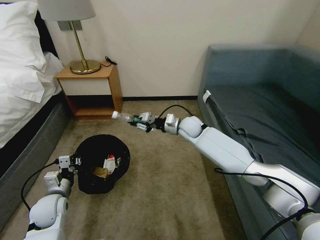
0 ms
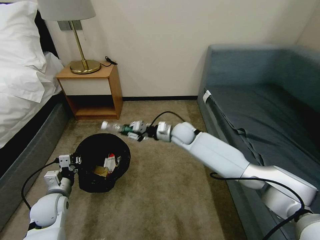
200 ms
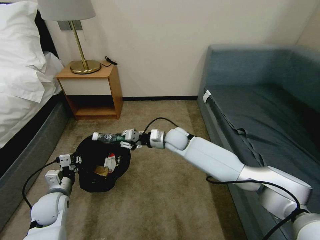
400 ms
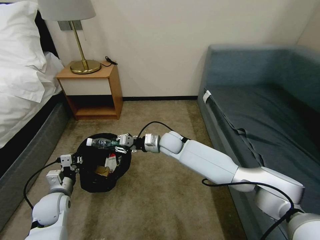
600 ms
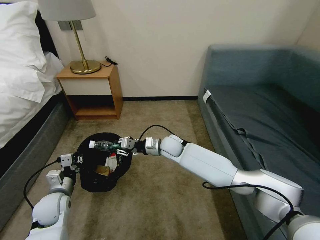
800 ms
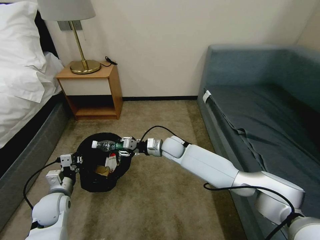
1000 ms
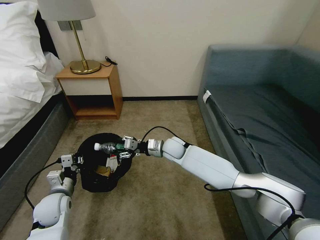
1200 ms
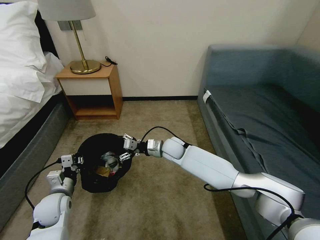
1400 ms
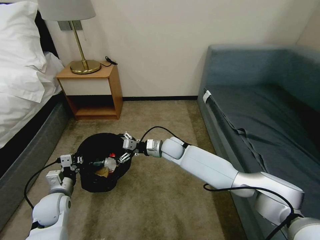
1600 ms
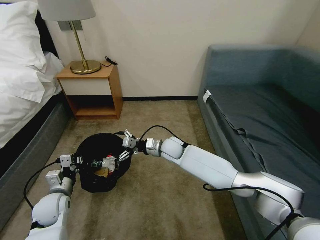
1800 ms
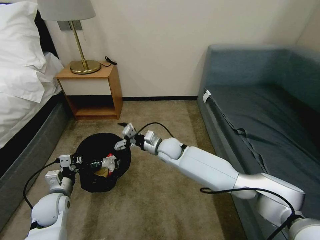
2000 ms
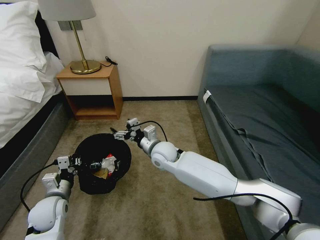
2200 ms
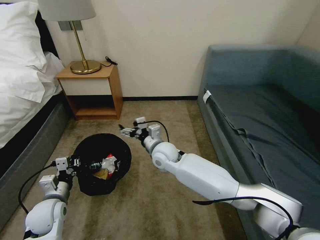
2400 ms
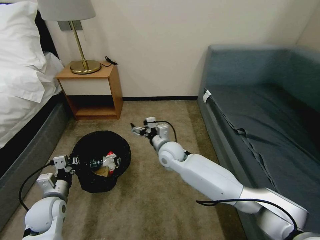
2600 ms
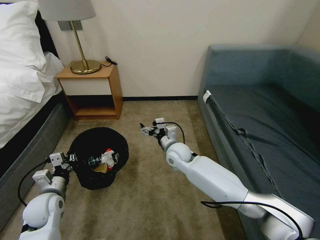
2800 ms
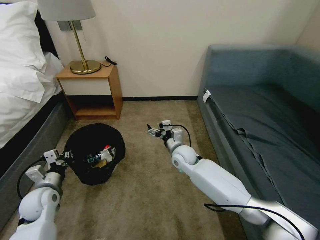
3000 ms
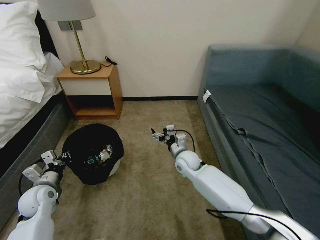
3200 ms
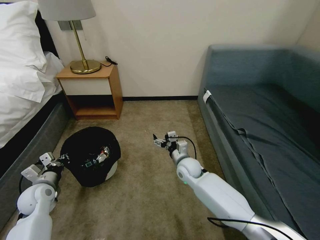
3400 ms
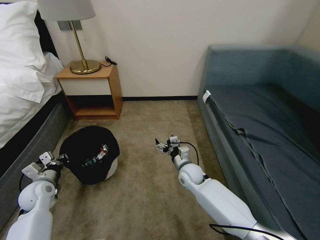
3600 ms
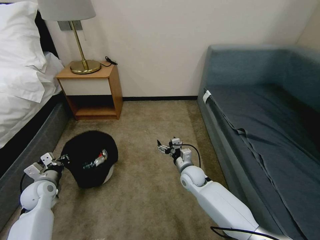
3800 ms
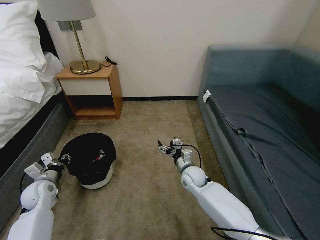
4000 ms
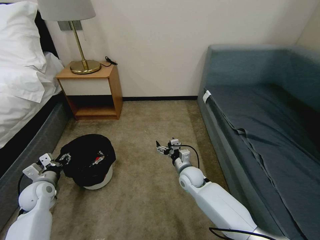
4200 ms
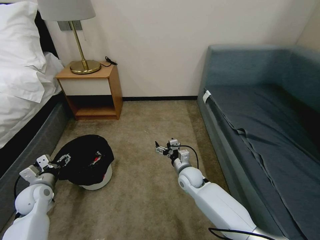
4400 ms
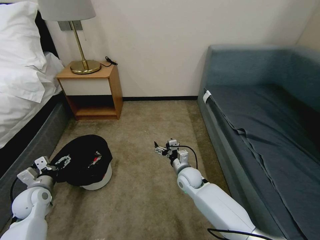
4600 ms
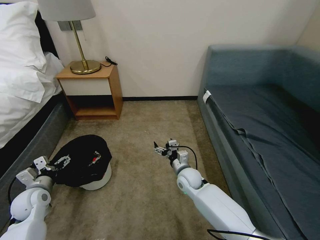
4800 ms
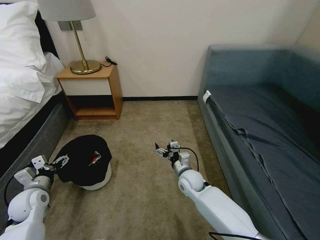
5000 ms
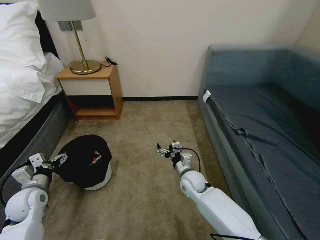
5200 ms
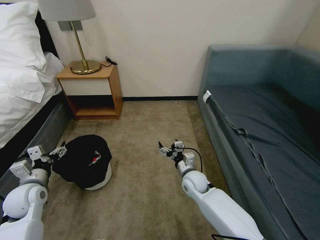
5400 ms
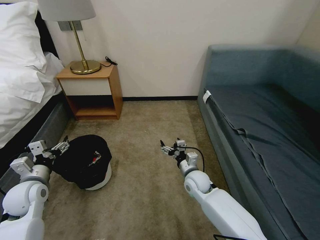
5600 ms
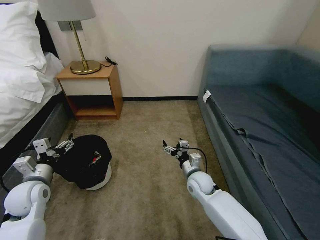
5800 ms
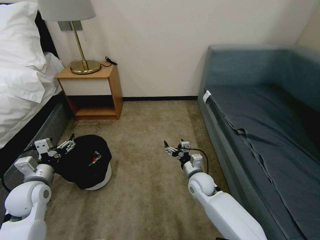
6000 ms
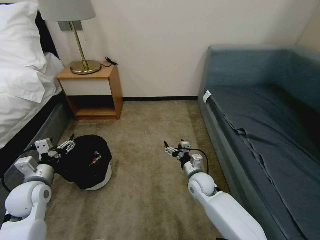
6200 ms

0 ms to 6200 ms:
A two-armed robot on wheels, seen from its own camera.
Task of the whole recording: Pick up the trash bin, then pick up the garbage on the floor and place it into the trash bin.
0 ms to 1600 ms: The right gripper shifts approximately 10 cm to the left, downward and backward, and opens its fingers.
1600 ms to 3200 ms: The right gripper goes about 5 cm to the right. Meanwhile the left gripper heads to the left, covering approximately 5 cm.
3200 ms to 4600 ms: The left gripper opens its fingers. The right gripper ends up roughly 5 cm from where it was.
4600 ms to 6200 ms: The left gripper shifts approximately 5 cm upward.

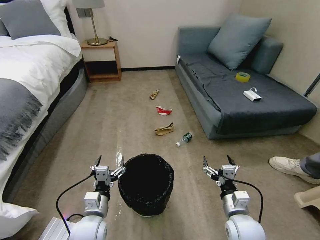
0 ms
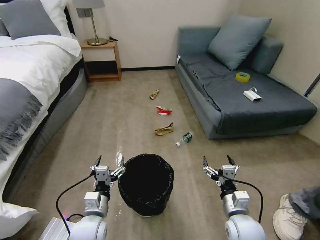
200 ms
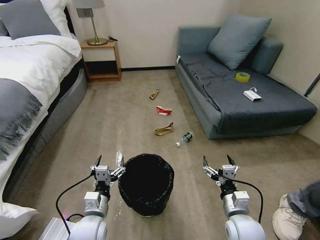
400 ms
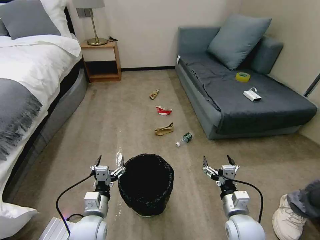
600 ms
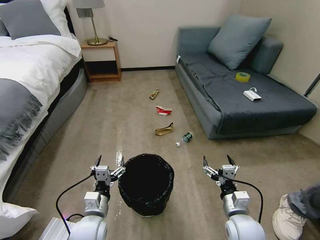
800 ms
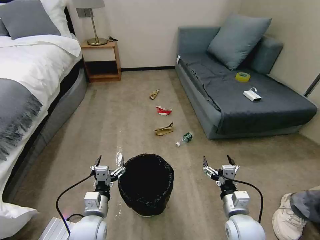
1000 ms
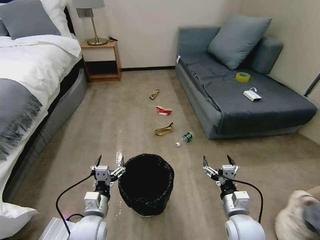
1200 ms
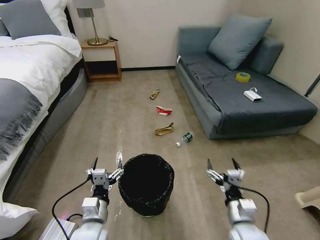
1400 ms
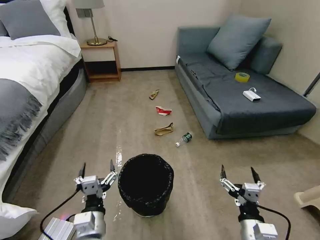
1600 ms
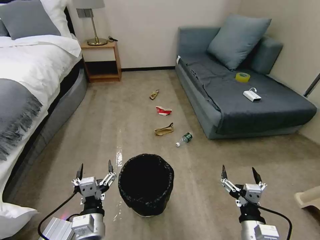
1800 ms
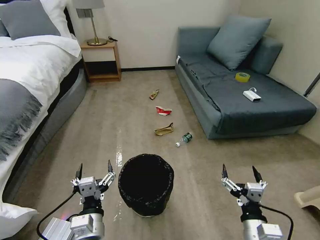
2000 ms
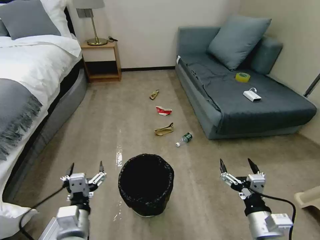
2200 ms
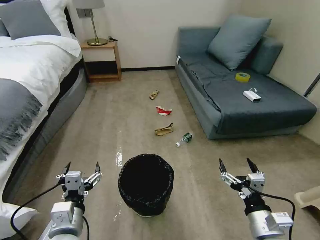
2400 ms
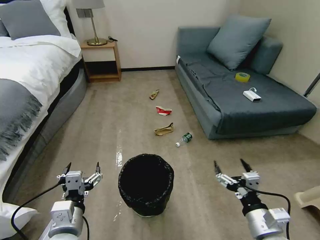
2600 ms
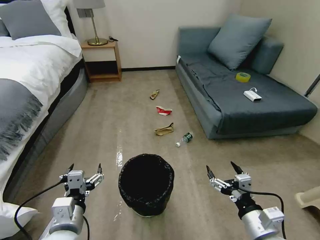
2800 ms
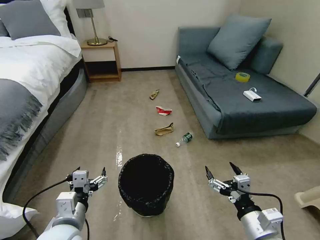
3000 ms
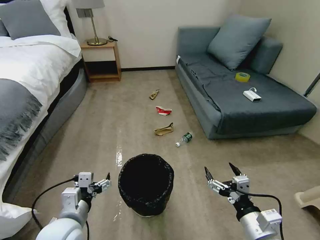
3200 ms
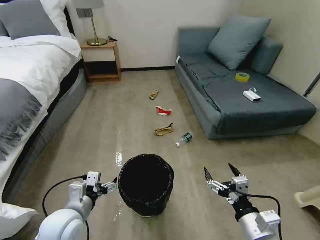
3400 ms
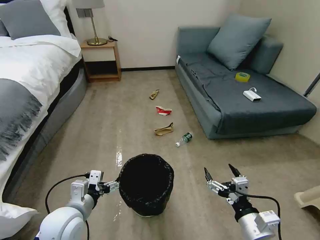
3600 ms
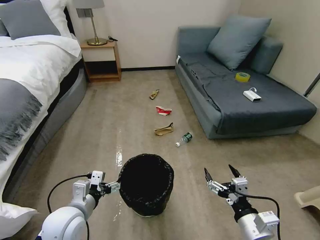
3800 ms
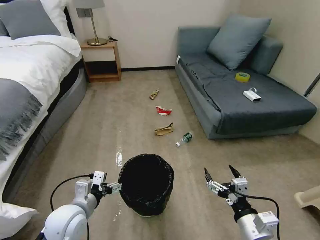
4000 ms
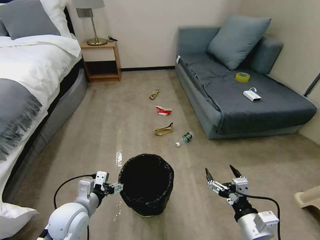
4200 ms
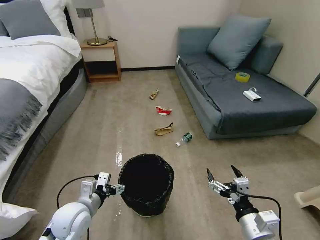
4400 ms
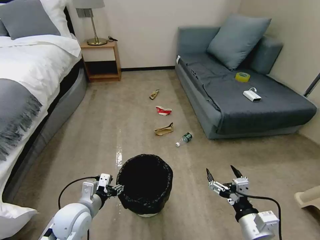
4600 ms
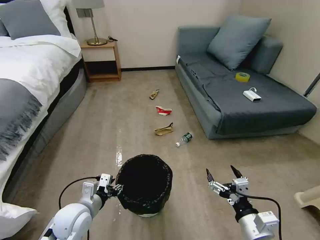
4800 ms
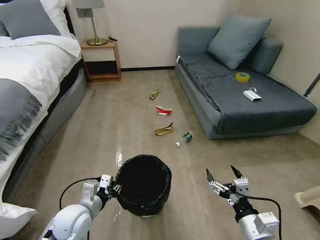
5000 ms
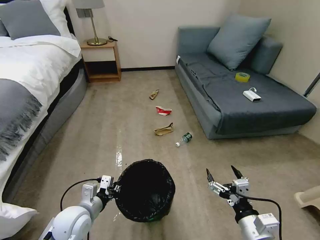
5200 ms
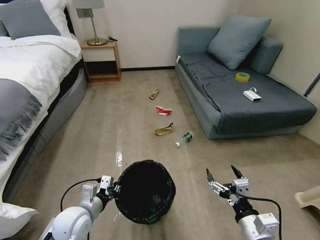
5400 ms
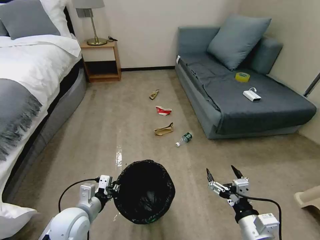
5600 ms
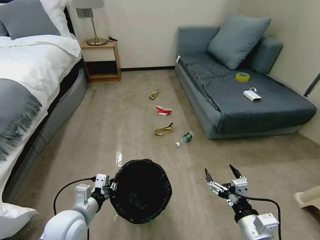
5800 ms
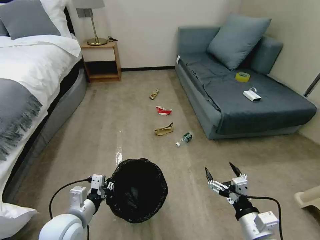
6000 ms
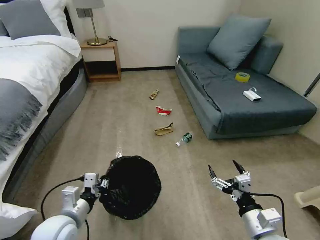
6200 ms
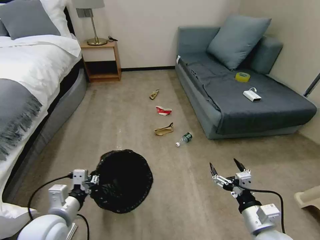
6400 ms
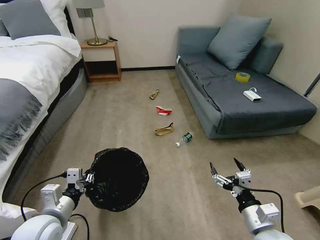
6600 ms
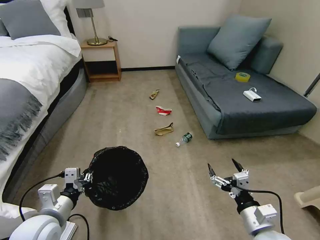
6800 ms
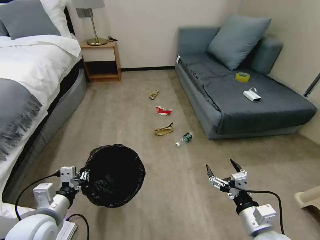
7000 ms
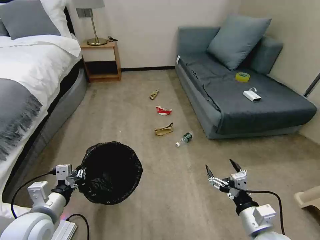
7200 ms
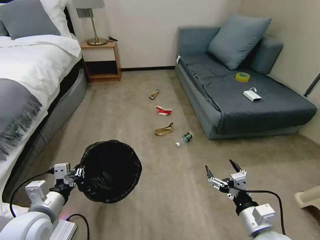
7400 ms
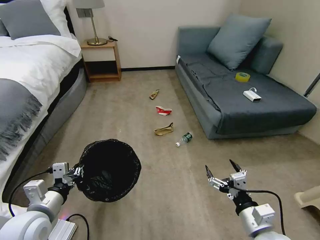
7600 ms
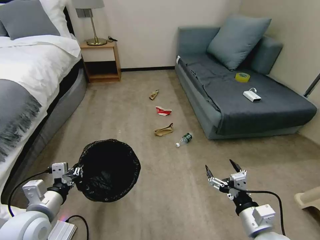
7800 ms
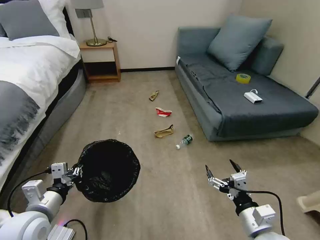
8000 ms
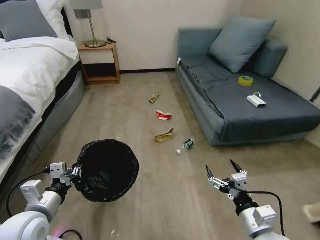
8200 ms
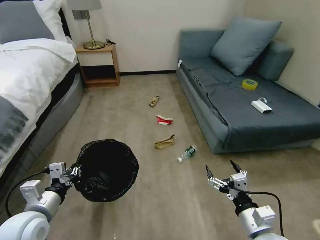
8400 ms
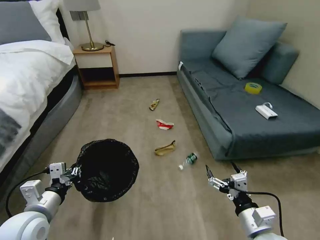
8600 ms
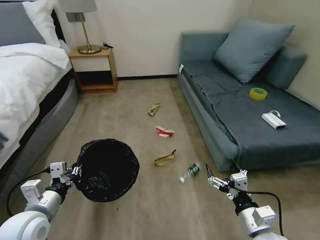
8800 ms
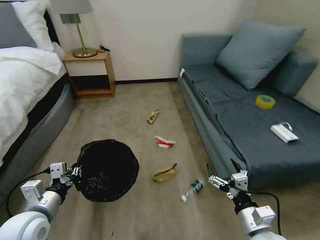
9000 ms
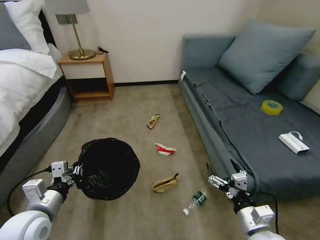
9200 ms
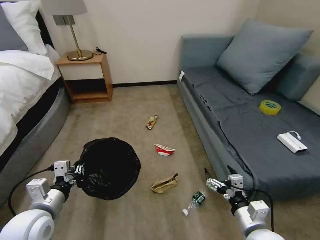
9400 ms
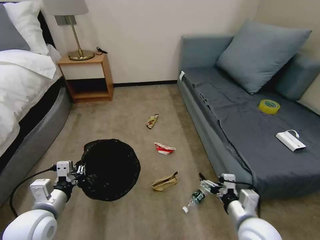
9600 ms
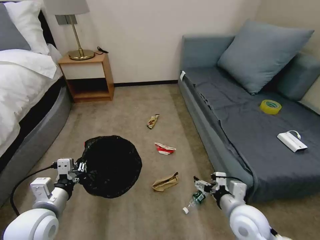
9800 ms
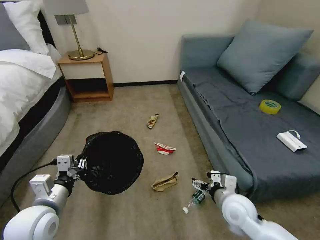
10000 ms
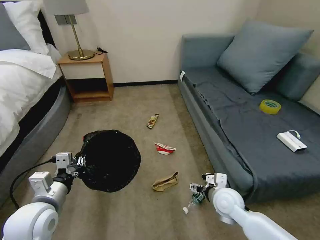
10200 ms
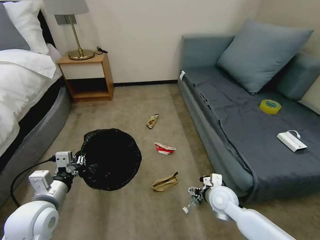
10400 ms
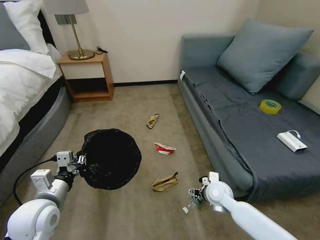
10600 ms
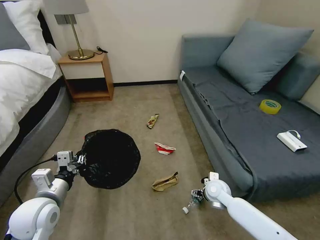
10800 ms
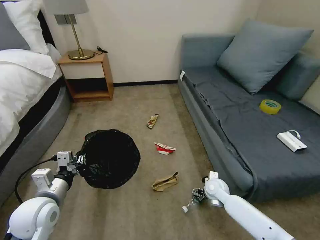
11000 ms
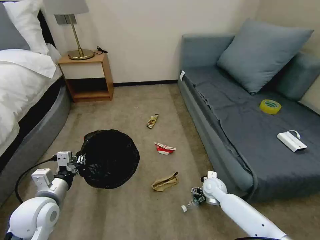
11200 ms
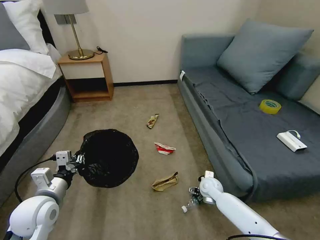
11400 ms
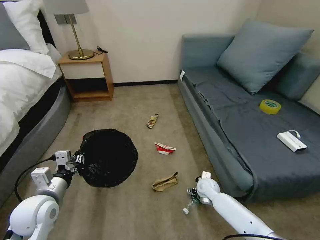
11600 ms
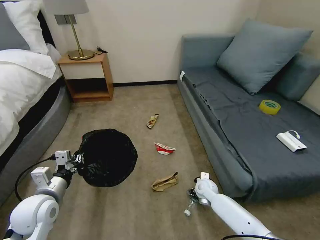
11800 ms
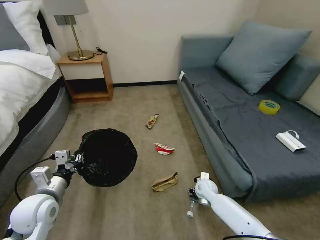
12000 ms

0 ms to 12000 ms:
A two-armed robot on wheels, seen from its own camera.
Task of the whole recording: Pick up the trash bin, then pick up the garbage on the floor and place it into the trash bin.
1600 ms to 3000 ms: The left gripper travels to the left by about 5 cm. The right gripper heads upward, covering approximately 5 cm.
3000 ms to 4400 ms: The left gripper heads forward and downward, covering some 10 cm.
4400 ms to 6000 ms: The left gripper closes.
6000 ms to 7600 ms: The left gripper is displaced to the left by some 5 cm.
9000 ms to 10400 ms: The right gripper moves forward, roughly 15 cm.
10400 ms to 12000 ms: The right gripper is displaced downward and forward by some 15 cm, and closes.

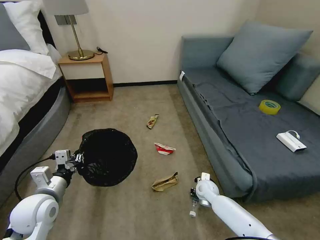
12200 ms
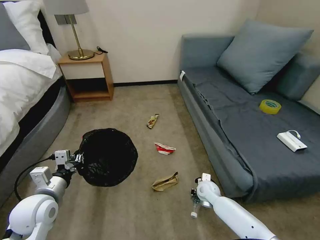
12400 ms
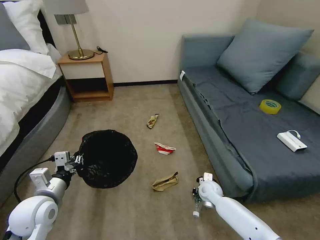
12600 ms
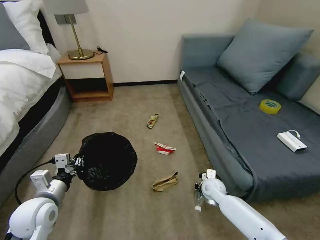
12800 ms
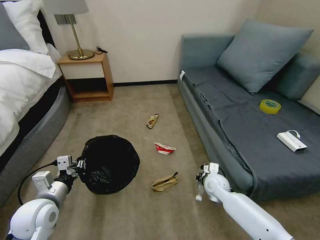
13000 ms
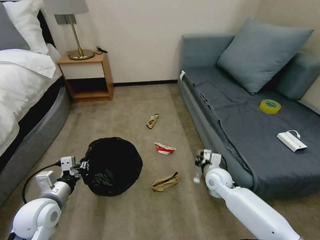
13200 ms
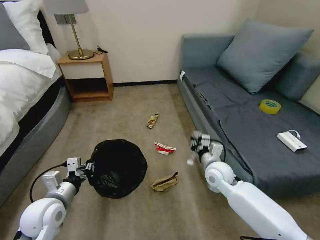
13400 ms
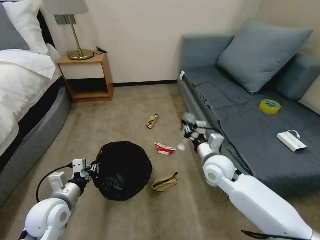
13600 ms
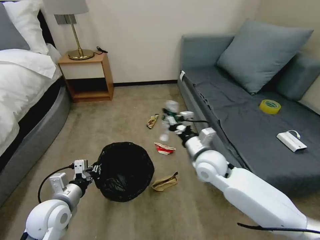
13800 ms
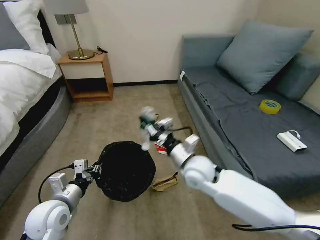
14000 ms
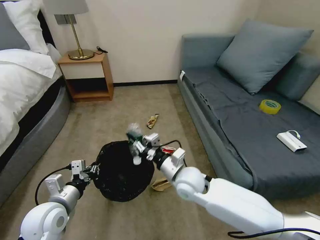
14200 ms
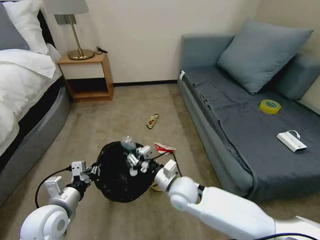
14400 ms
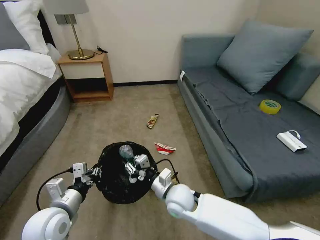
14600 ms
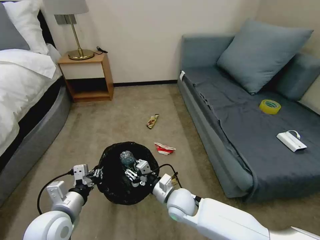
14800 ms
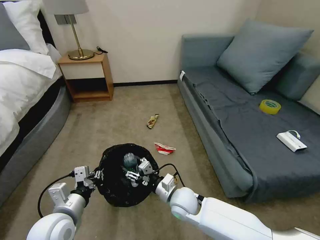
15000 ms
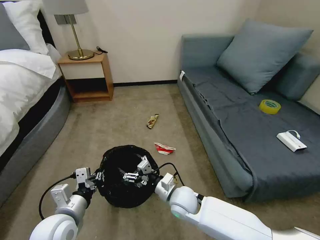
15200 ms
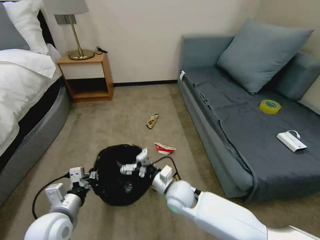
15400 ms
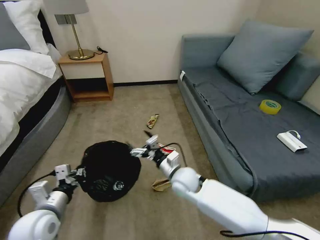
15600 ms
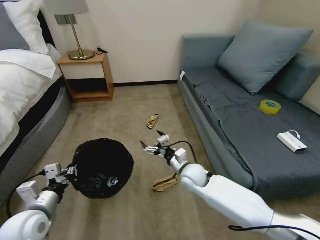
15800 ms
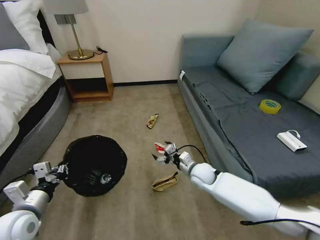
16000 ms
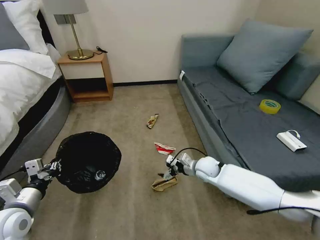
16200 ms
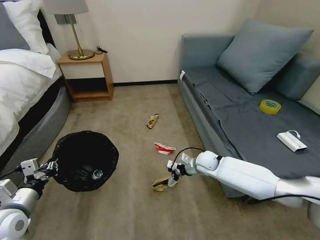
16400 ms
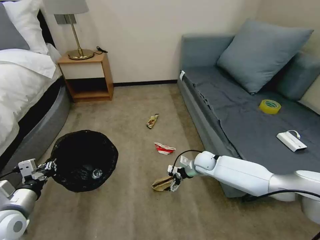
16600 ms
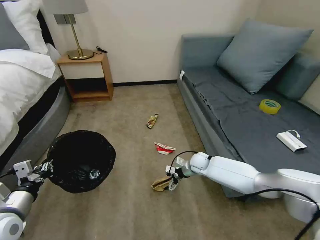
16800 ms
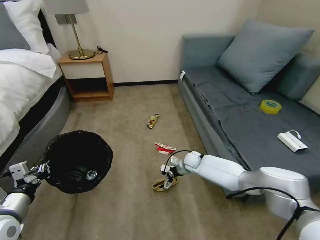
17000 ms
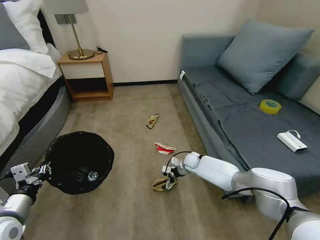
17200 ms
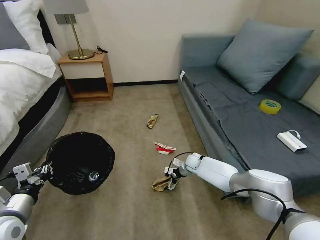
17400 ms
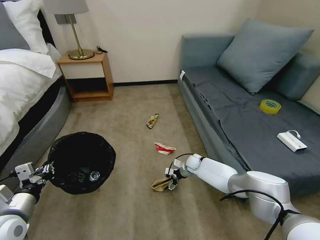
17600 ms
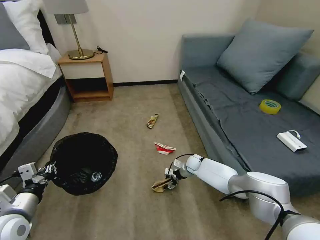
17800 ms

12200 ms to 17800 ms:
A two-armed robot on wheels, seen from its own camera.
Task of the whole recording: Pick up the trash bin, then pick up the garbage on the floor and place it into the trash bin.
12200 ms to 13600 ms: The right gripper moves upward, about 20 cm.
13600 ms to 15000 ms: The right gripper is displaced to the left, downward and backward by some 15 cm, and opens up. Meanwhile the left gripper ends up approximately 5 cm from where it was.
15000 ms to 16400 ms: The right gripper travels forward and to the right by approximately 20 cm, and opens. The left gripper travels to the left by roughly 10 cm.
16400 ms to 17800 ms: The right gripper heads downward and forward, covering roughly 10 cm.
